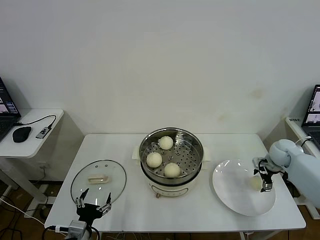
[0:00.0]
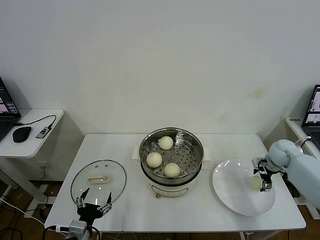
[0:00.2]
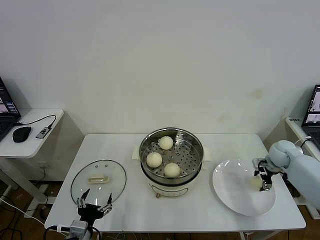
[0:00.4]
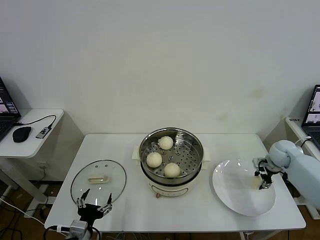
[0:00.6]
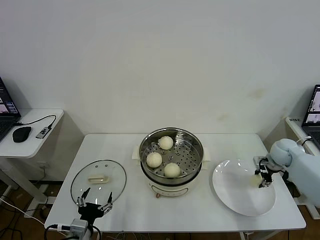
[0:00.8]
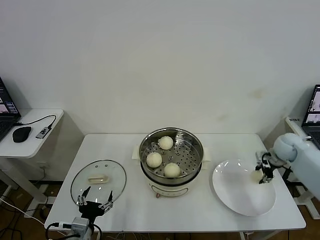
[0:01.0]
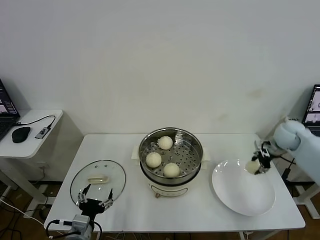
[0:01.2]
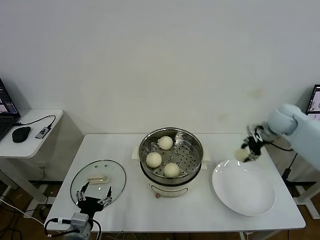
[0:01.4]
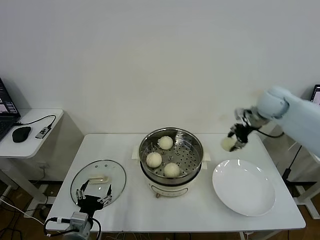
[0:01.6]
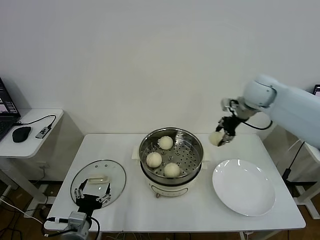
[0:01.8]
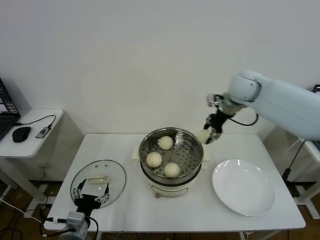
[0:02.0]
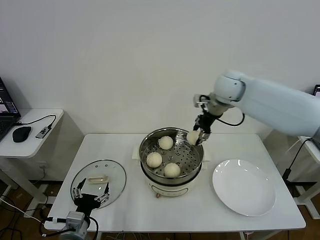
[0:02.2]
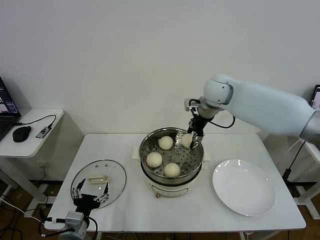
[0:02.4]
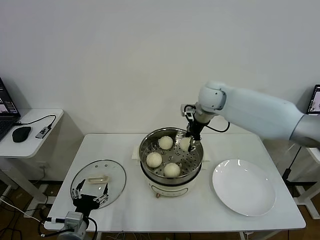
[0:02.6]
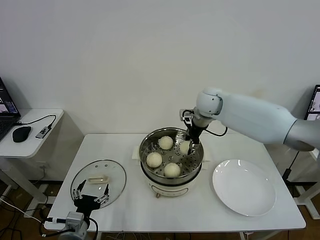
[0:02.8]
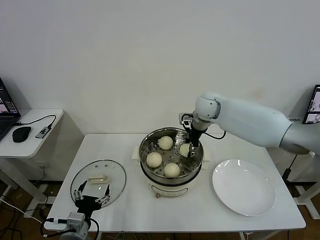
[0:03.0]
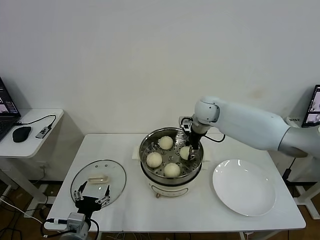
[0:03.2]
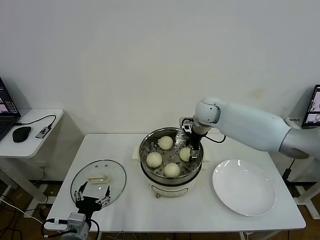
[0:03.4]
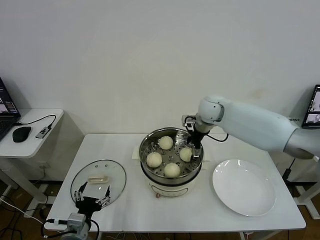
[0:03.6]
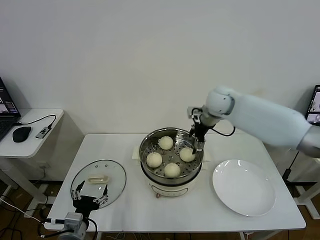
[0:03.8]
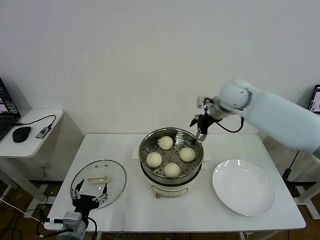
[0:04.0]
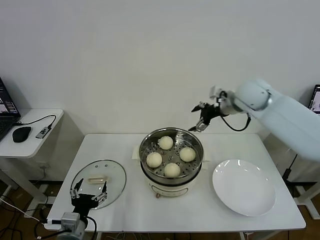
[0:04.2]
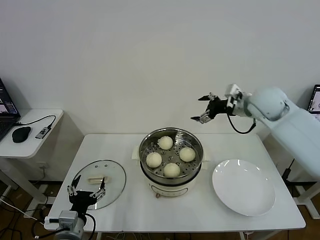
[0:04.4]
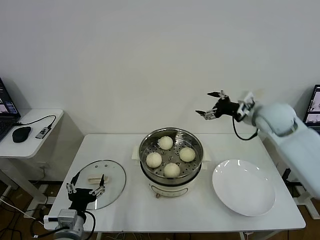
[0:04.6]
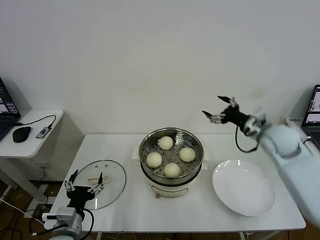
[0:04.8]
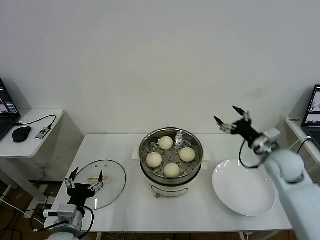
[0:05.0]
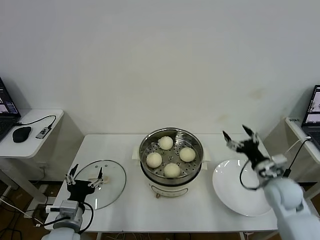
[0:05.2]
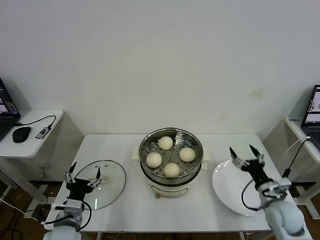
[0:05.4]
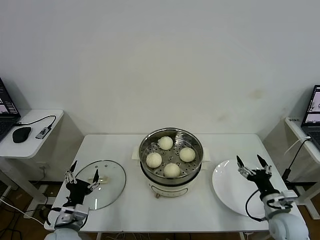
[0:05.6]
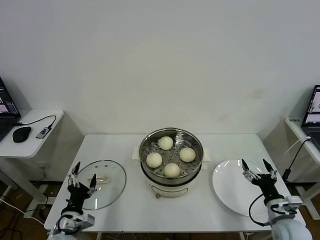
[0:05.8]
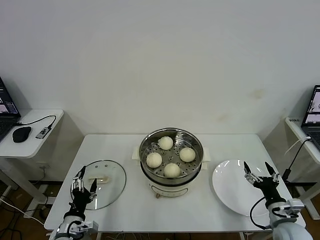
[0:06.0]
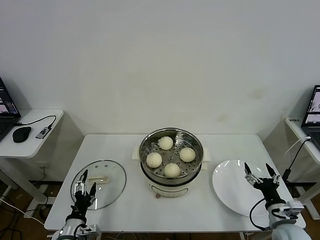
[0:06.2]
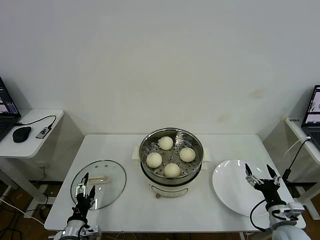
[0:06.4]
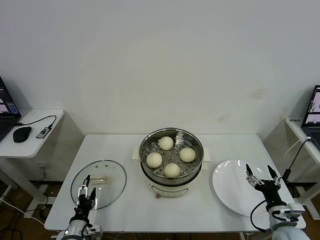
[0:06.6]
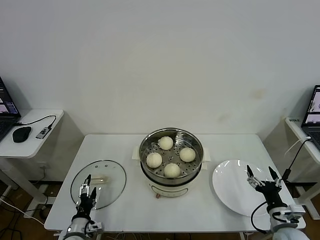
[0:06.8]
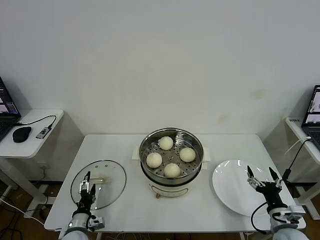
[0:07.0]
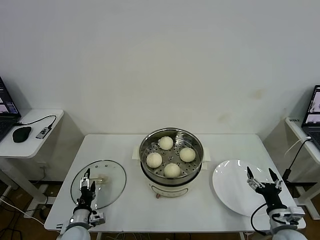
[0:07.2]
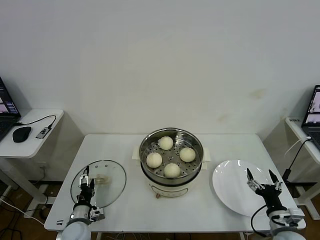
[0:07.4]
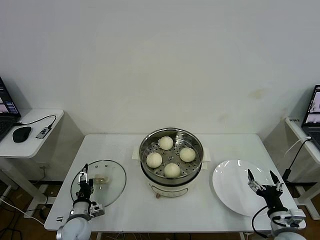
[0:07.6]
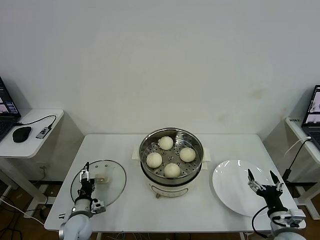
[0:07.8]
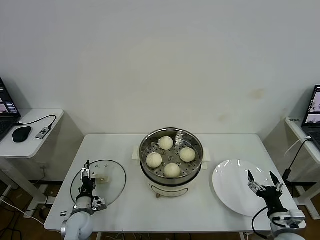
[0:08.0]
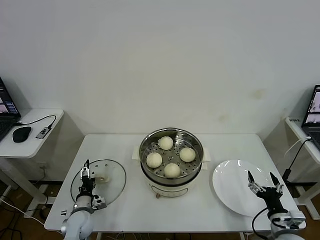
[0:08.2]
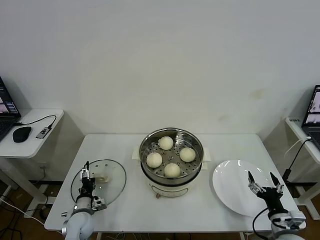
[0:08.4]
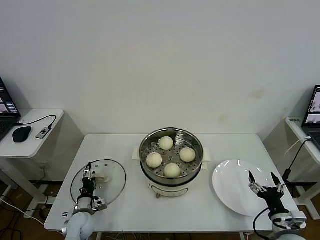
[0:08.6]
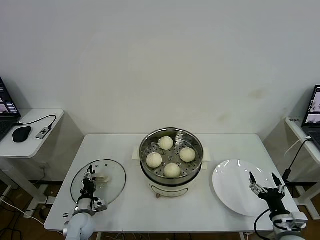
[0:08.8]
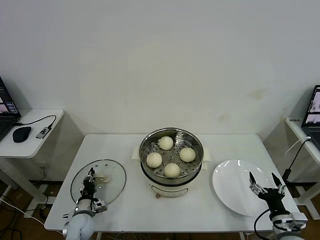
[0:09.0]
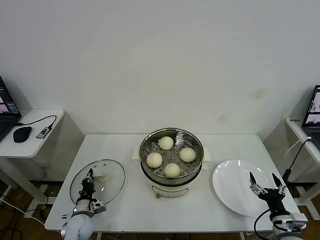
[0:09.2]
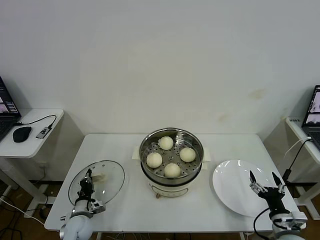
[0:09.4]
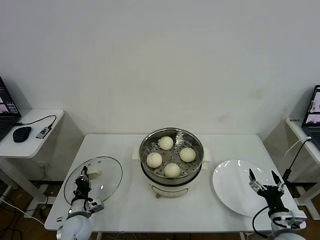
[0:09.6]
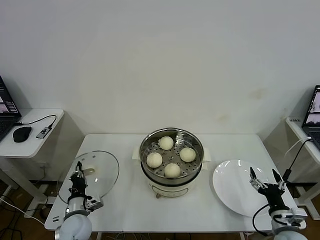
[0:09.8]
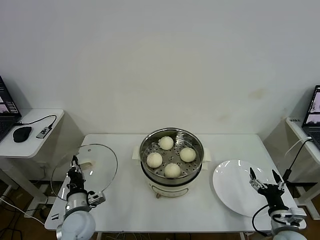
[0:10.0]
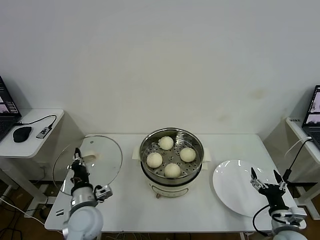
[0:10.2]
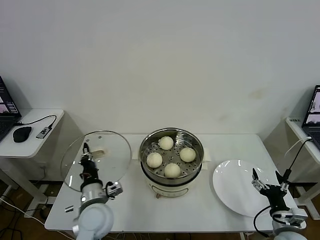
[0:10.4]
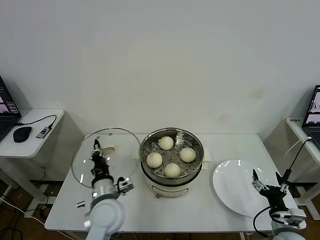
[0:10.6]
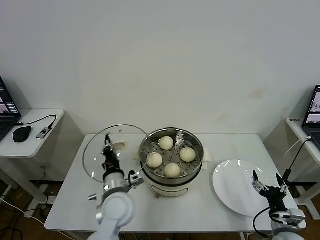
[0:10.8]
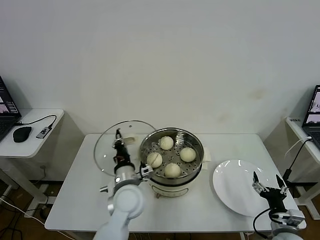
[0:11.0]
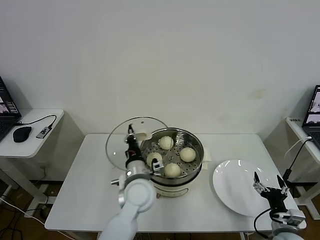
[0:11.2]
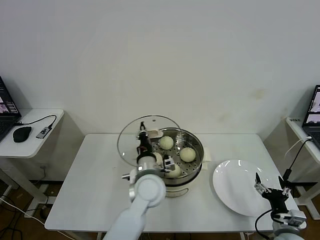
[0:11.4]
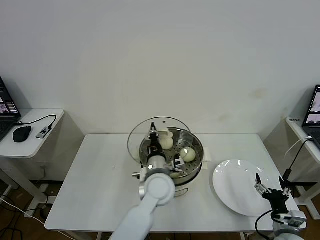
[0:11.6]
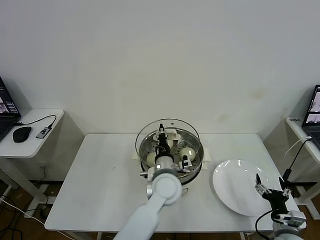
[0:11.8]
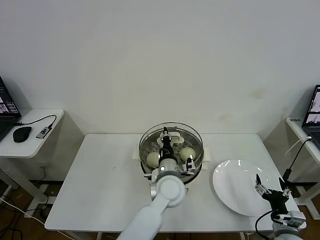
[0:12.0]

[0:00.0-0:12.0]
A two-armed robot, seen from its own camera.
Task of the whole recording: take steamed baozi put them in steamer then cover it.
Step, 0:01.0 to 0:03.6: Place the baozi on the steamer with right gripper.
Step, 0:03.8 to 0:09.2: Grasp the pot lid with left gripper.
0:00.0 to 0:01.6: The right gripper is displaced upward and to the left by roughly 25 cm, and closes.
0:01.6 to 0:03.0: The right gripper heads to the left, covering roughly 20 cm.
0:03.0 to 0:04.4: The right gripper heads to the right, backward and upward, covering some 20 cm, and opens its fingers.
0:04.4 to 0:06.0: The left gripper heads downward, covering roughly 5 cm; the right gripper shifts approximately 40 cm downward and backward.
0:06.0 to 0:07.6: The left gripper heads downward and forward, covering roughly 10 cm.
0:07.6 to 0:09.0: The left gripper closes.
0:09.0 to 0:10.4: The left gripper moves upward and to the right, approximately 20 cm.
0:10.4 to 0:12.0: The left gripper goes about 20 cm to the right.

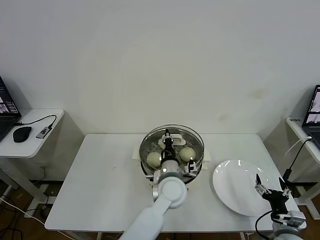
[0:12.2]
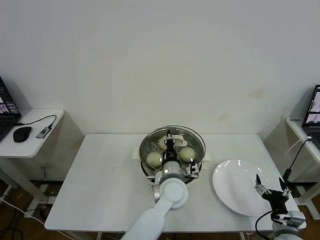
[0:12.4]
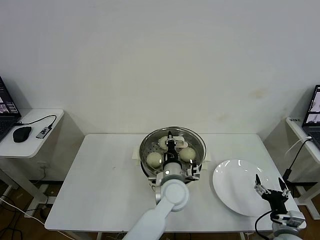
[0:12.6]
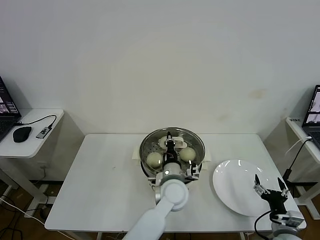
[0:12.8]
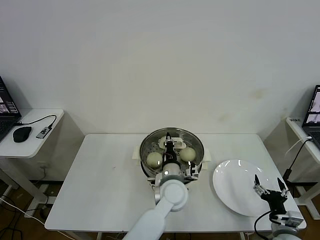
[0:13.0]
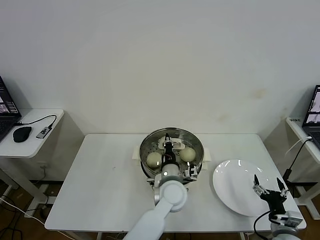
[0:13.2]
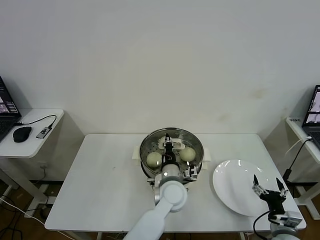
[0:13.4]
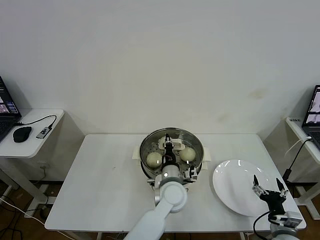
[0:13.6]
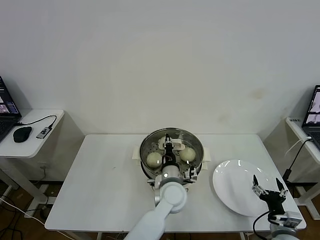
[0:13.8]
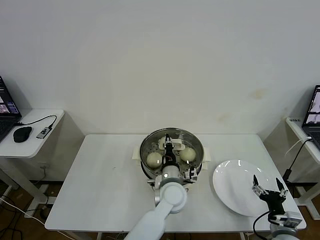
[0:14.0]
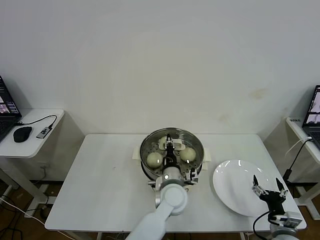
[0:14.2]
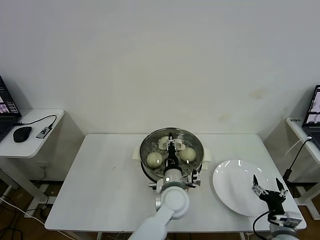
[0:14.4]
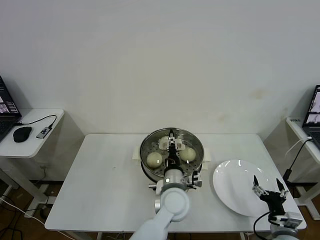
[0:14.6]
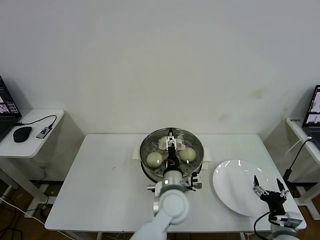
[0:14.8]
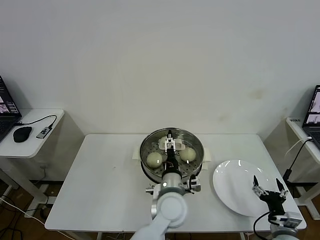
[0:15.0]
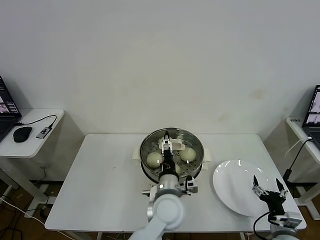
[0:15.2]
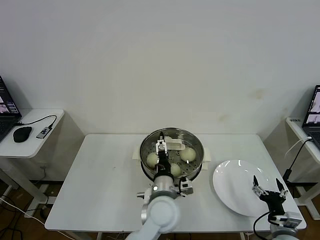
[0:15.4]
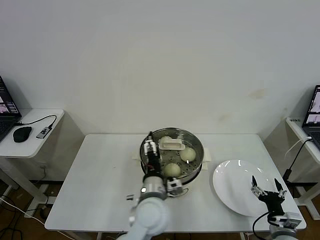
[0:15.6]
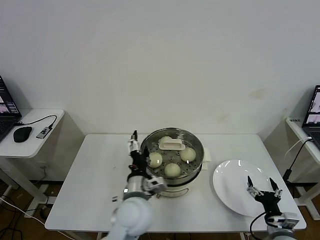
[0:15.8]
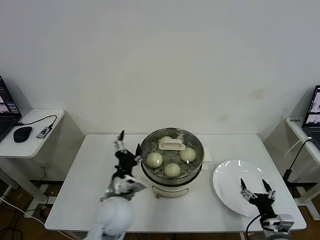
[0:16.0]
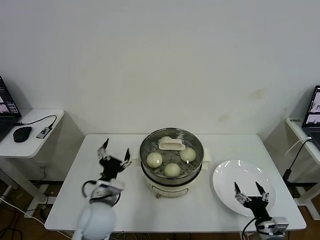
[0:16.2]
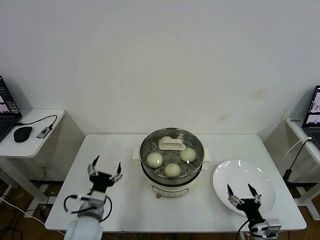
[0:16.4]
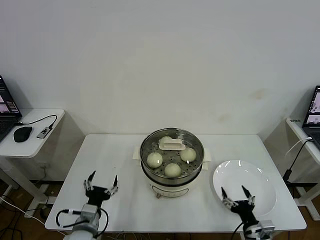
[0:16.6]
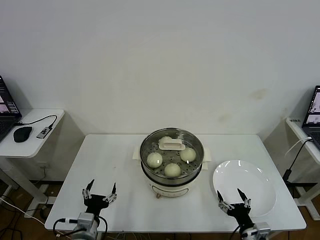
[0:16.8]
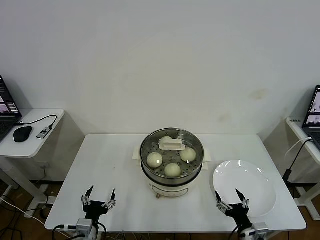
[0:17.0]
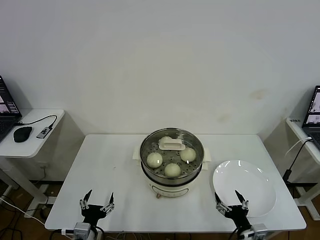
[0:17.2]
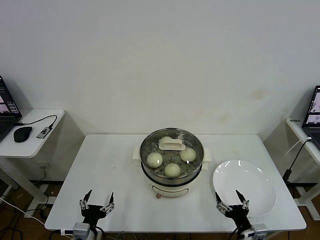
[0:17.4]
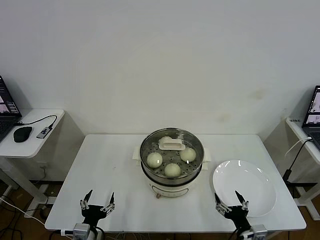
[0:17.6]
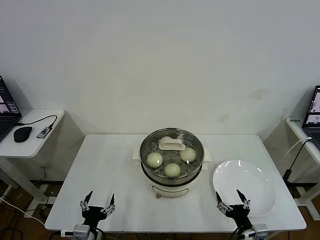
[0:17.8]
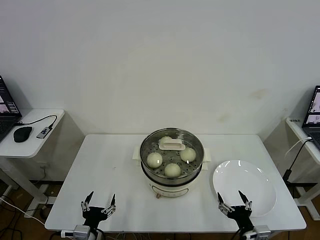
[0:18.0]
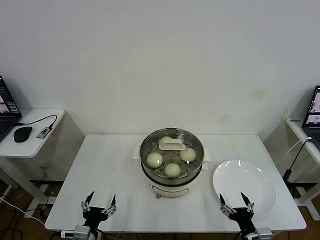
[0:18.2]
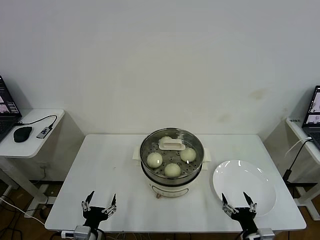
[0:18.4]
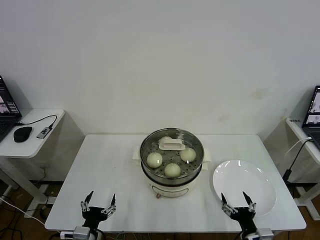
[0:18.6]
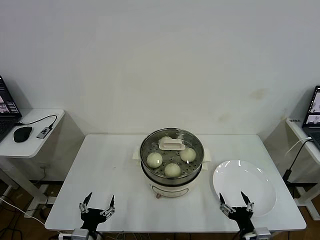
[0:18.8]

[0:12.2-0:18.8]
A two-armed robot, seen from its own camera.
Task of the whole recording: take steamed baozi put them in steamer then cover it.
Step, 0:12.2 to 0:15.0: Place the pot lid on the steamer with left gripper.
0:12.2 to 0:13.8: There are only small adjustments of the grippers.
0:13.8 to 0:15.4: The left gripper shifts about 5 cm backward, and opens its fingers.
0:15.4 to 0:17.2: The right gripper goes about 10 cm to the left. The left gripper moves to the left, backward and downward, roughly 30 cm.
0:17.2 to 0:18.8: The grippers move only a little.
